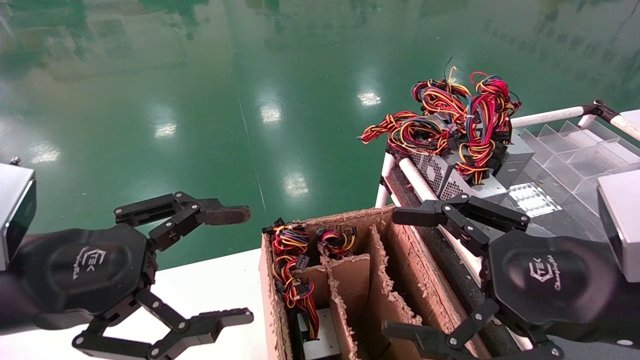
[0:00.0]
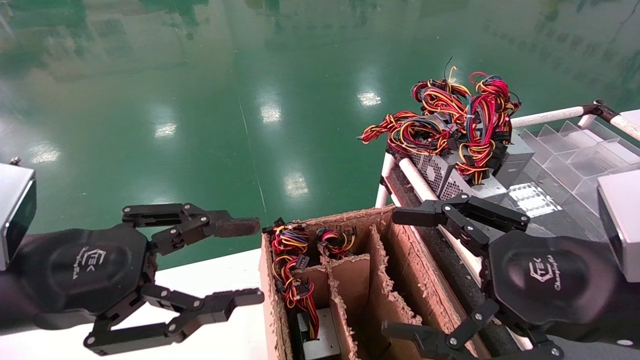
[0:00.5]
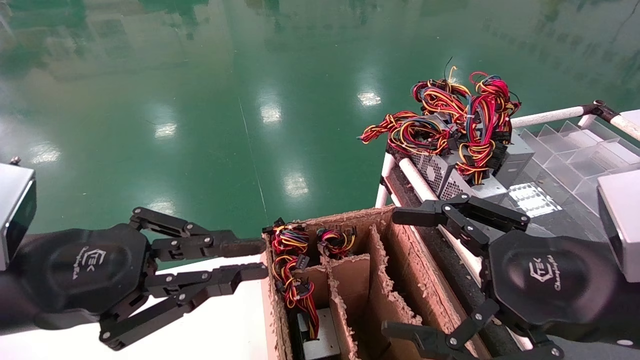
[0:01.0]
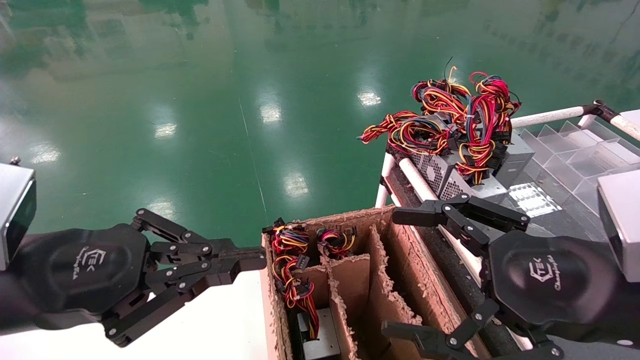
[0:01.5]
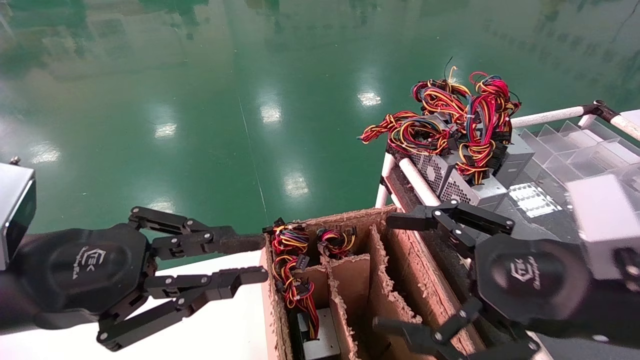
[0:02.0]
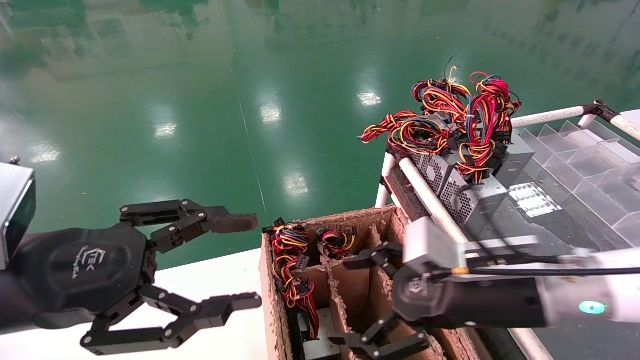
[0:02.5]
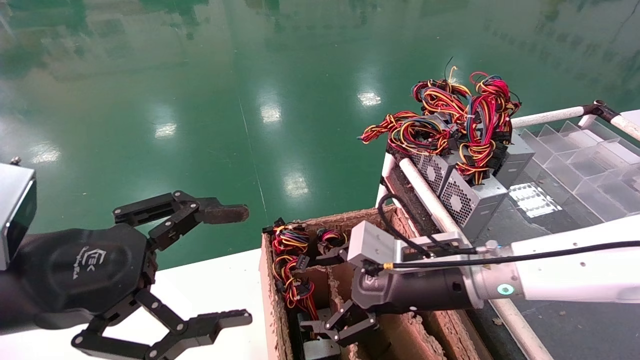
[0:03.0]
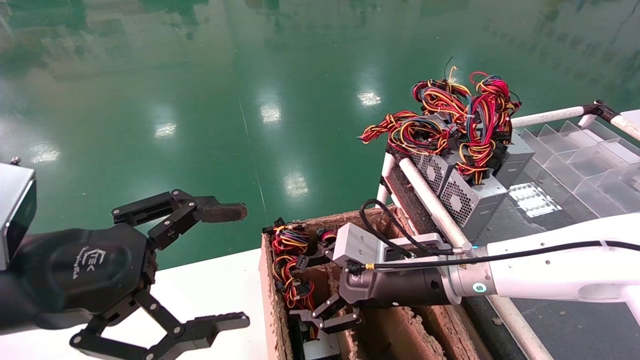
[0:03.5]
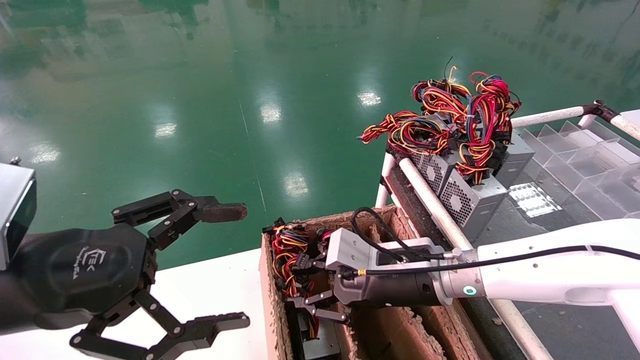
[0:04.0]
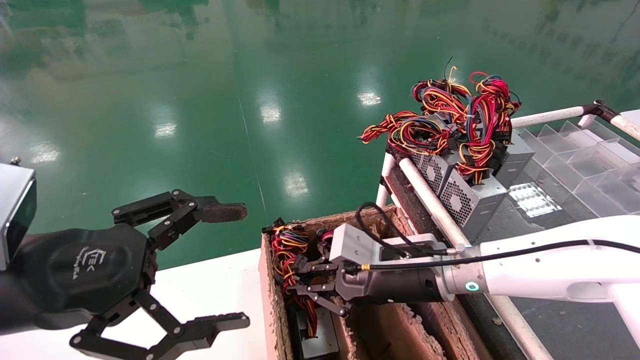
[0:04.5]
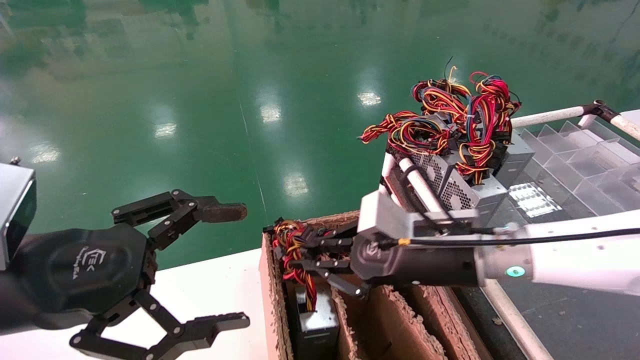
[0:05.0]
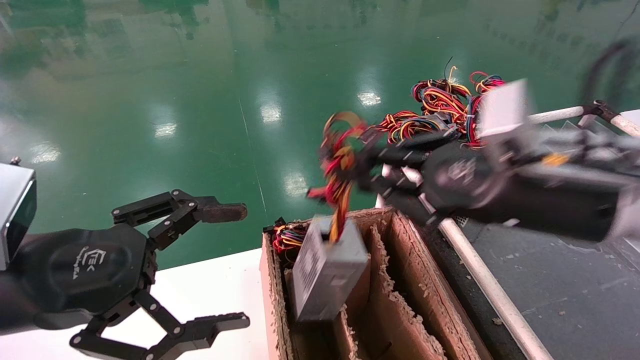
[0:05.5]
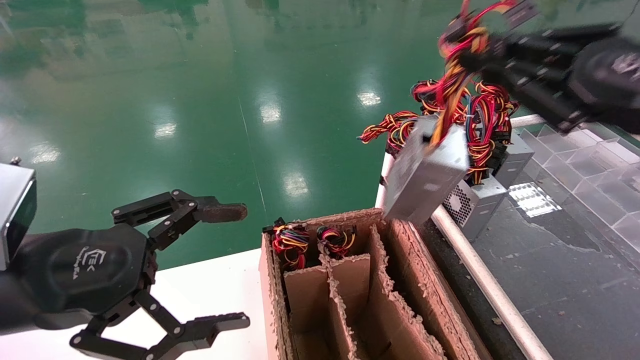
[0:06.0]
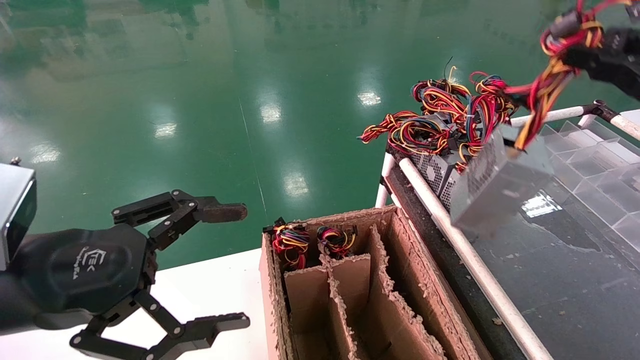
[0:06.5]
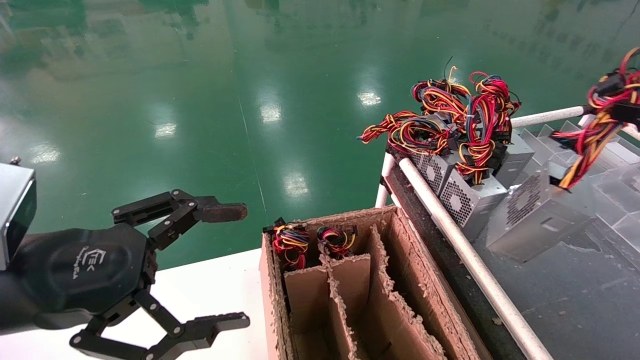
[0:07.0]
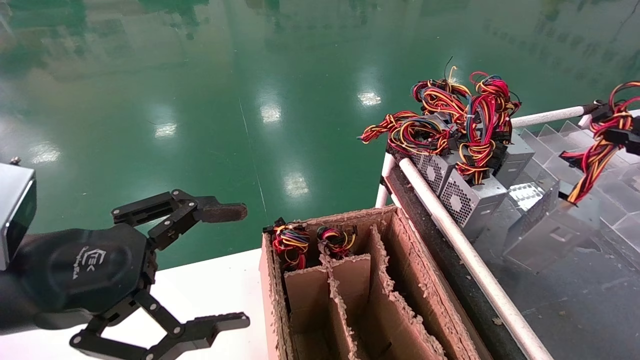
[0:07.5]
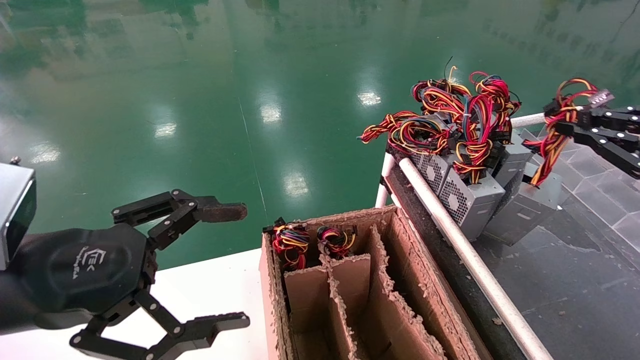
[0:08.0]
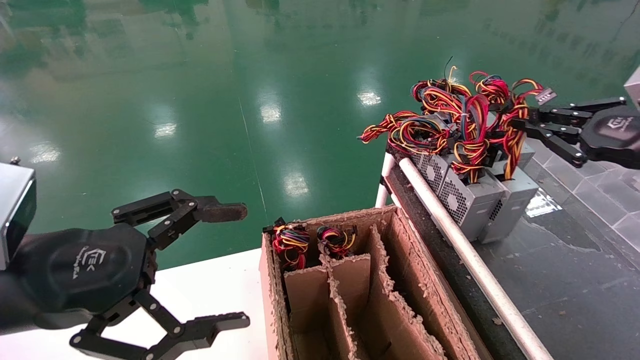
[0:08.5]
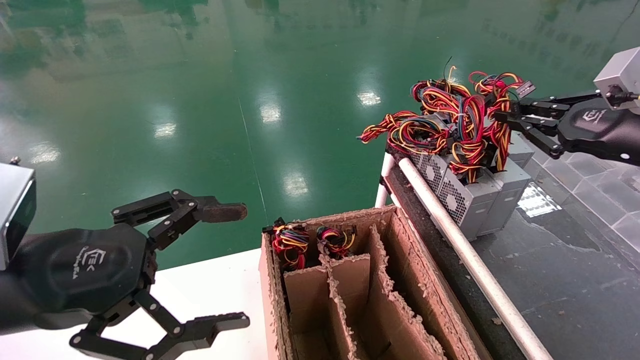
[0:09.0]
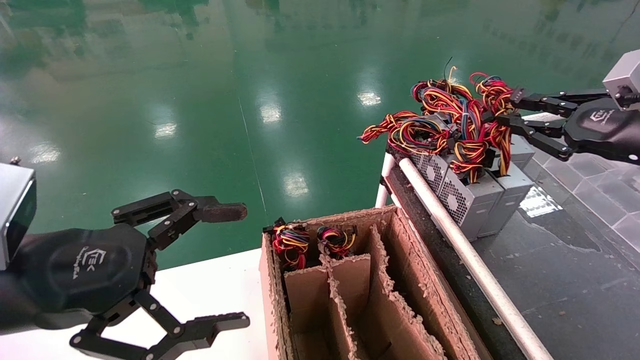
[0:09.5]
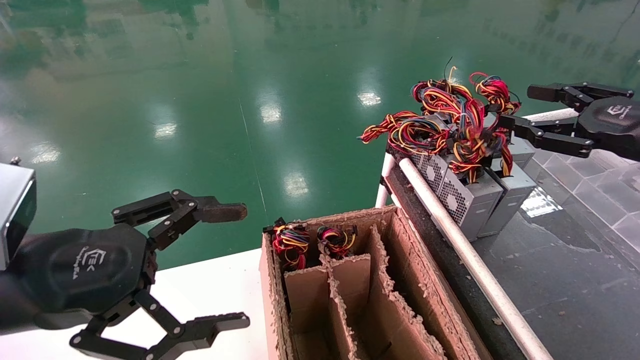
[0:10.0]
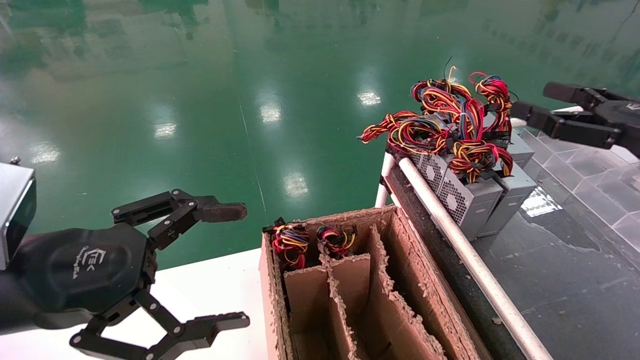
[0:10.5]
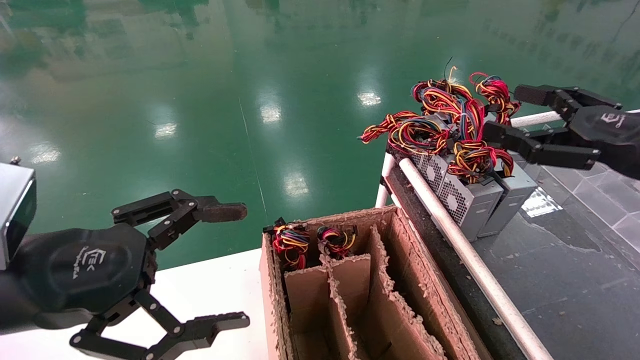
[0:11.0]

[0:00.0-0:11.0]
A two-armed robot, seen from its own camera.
Step, 0:01.5 to 0:04.5: Grab and lift the power supply from the large box.
Step, 0:05.0 to 0:09.5: Place the power supply on the operating table.
0:00.0 to 0:02.0: The left gripper closes up.
0:02.0 to 0:03.5: The left gripper opens its fingers. Meanwhile the right gripper travels forward, to the left and downward by approximately 20 cm.
0:03.5 to 0:05.5: The right gripper goes approximately 20 cm upward, to the right and backward, and closes.
0:05.5 to 0:07.5: The right gripper heads to the right, covering about 25 cm.
0:07.5 to 0:09.0: The right gripper shifts approximately 15 cm forward and to the left.
0:09.0 to 0:11.0: The right gripper ends up some 5 cm from where it was, and opens.
